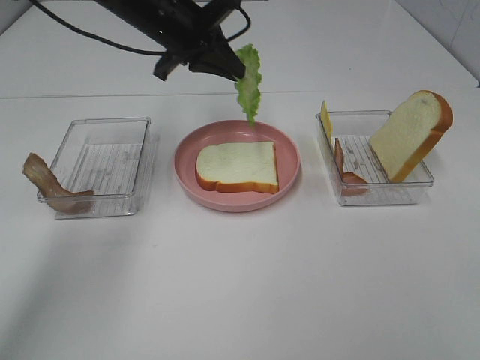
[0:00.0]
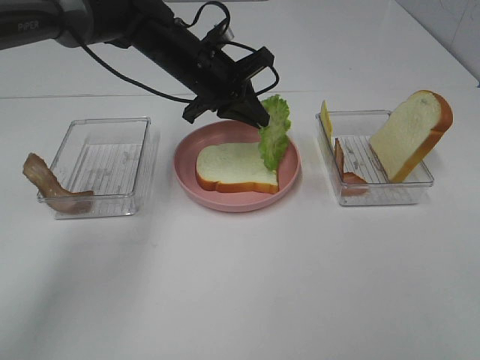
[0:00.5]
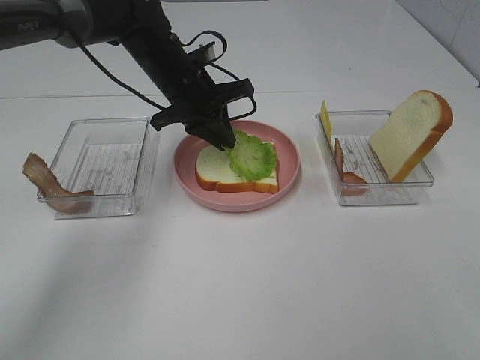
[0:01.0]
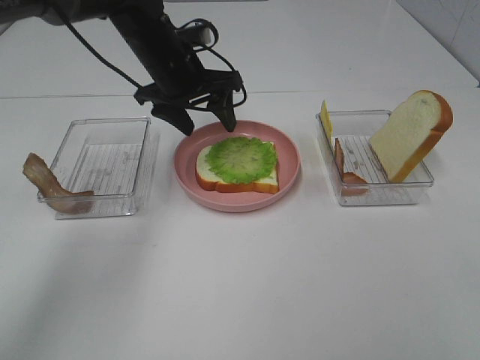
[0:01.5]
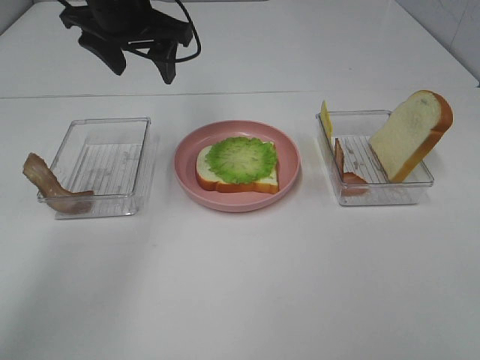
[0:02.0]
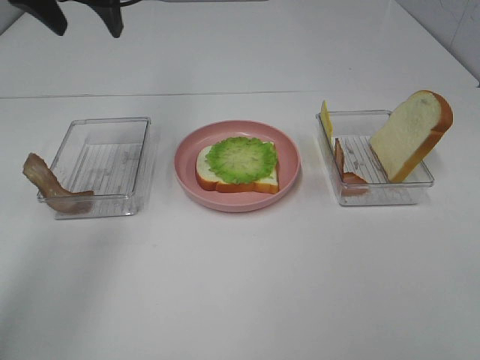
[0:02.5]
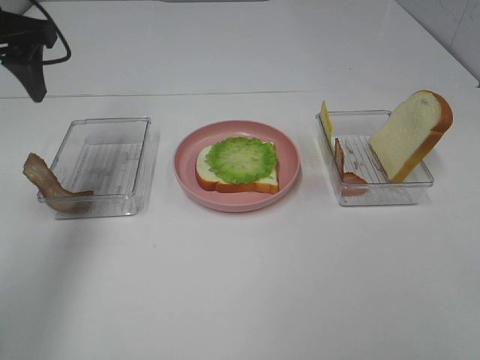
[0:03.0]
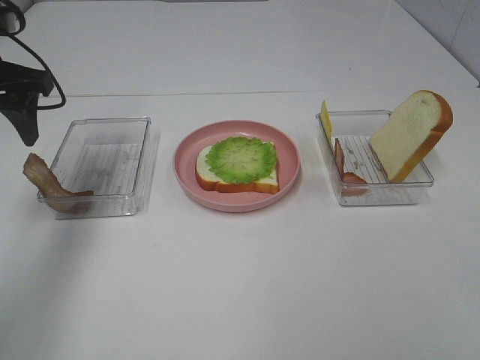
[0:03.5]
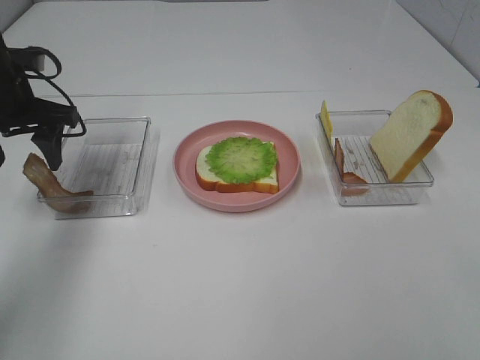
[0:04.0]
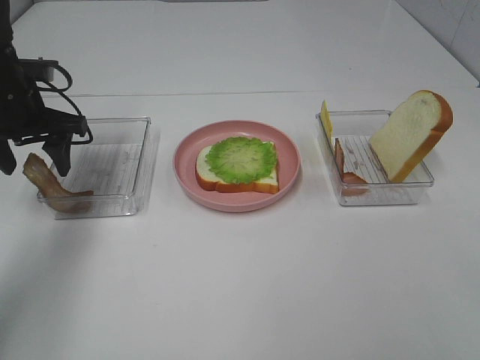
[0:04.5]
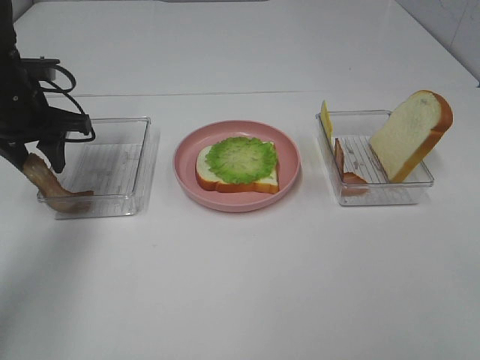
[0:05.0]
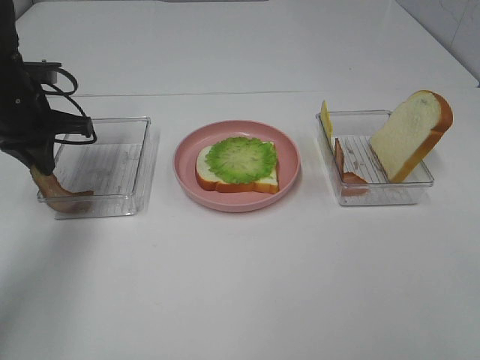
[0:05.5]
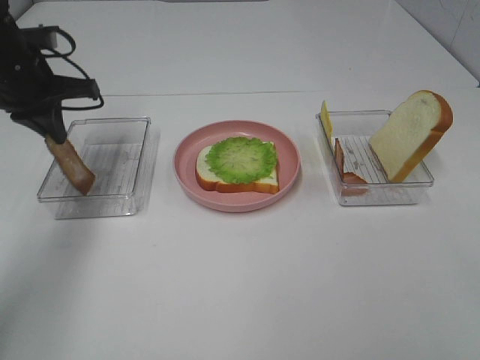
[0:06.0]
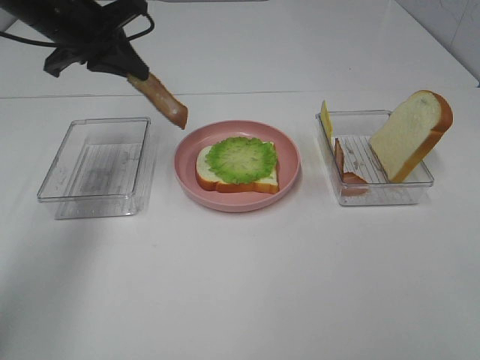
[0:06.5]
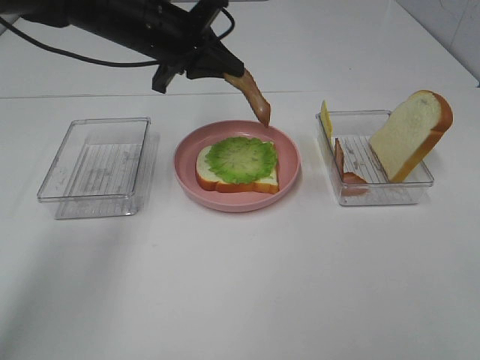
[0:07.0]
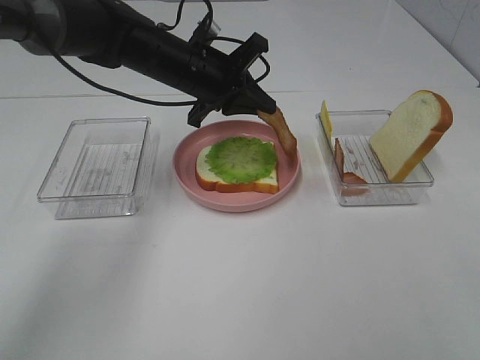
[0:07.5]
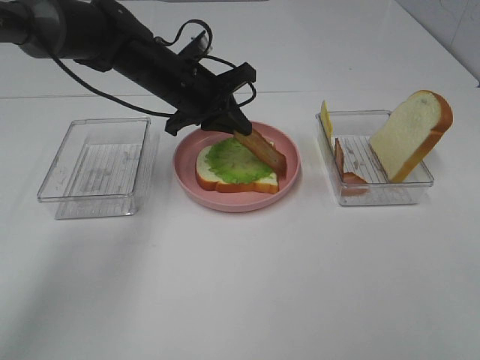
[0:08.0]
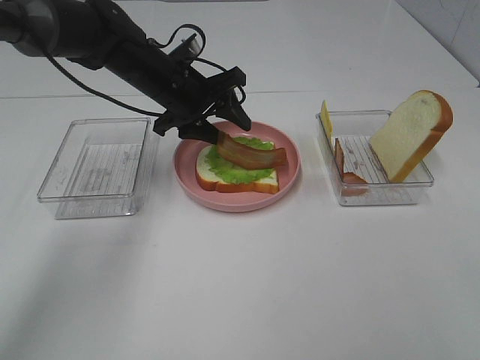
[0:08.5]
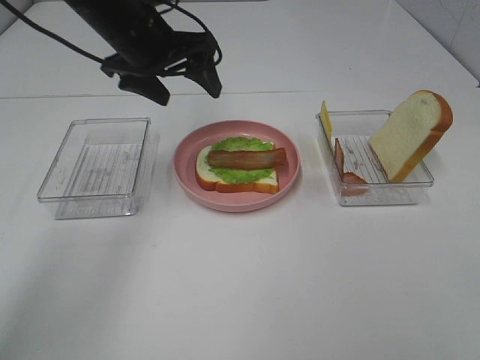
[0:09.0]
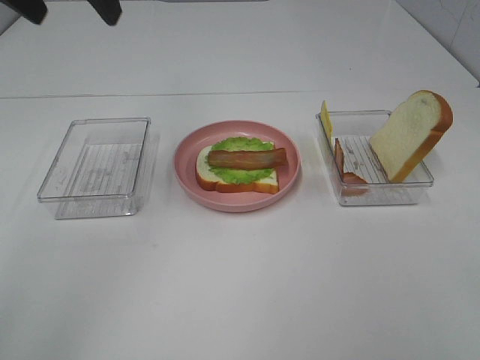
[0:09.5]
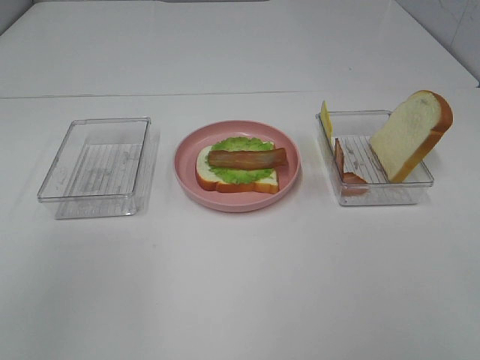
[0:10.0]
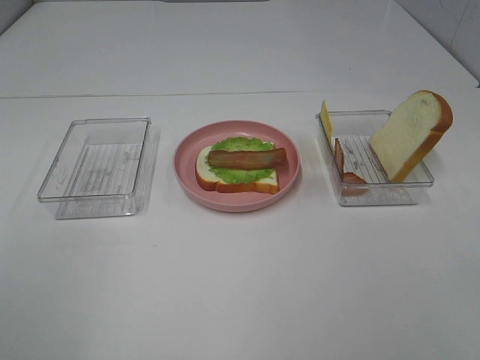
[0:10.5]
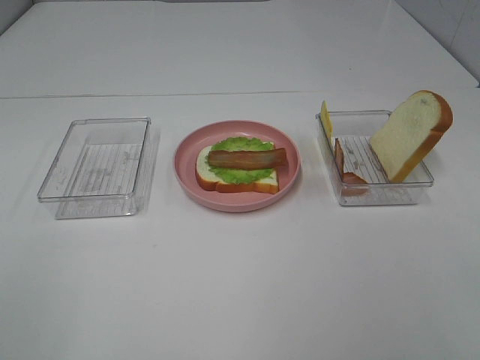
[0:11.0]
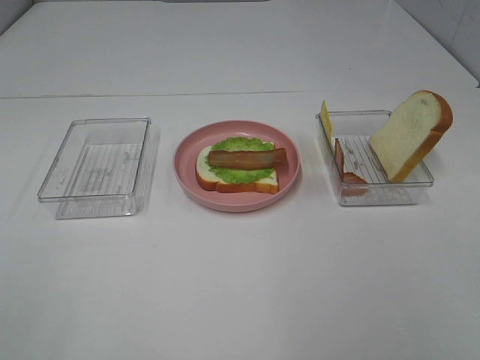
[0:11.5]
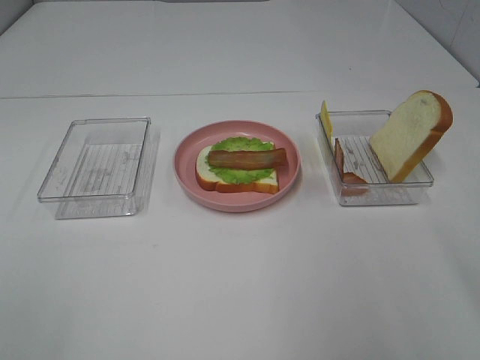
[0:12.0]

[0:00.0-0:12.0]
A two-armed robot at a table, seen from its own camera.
Task of the whole recording: Make sandwiches.
Step, 1.5 to 5.5 s: Left hand:grab the bacon.
Step, 6.0 to 8.5 s: Left hand:place bacon on lettuce slice.
0.0 to 2.0 s: The left gripper shifts by roughly 5 cm, and opens.
2.0 to 4.0 s: The left gripper shifts about 15 cm to the left and downward.
4.0 to 6.0 s: The left gripper closes up.
6.0 to 8.0 s: The left gripper travels to the right by roughly 15 cm.
8.0 to 10.0 s: The left gripper is displaced backward, upward and to the left by approximately 40 cm, and opens its fingers.

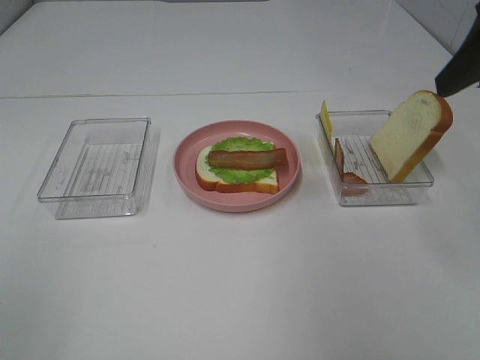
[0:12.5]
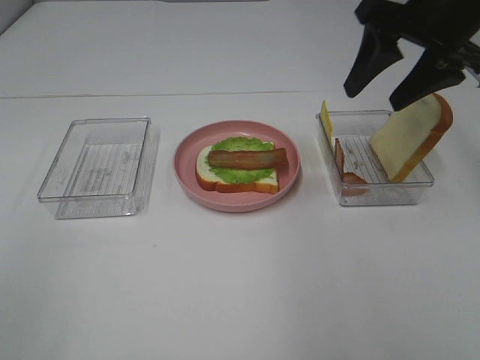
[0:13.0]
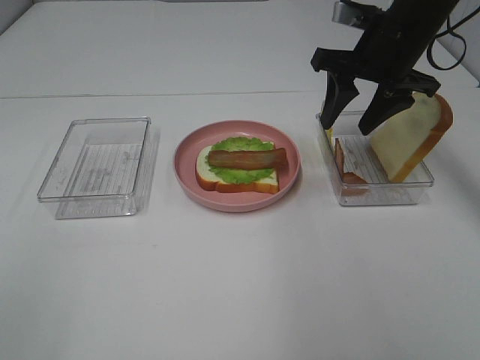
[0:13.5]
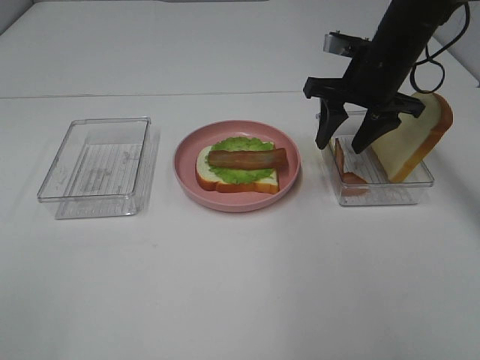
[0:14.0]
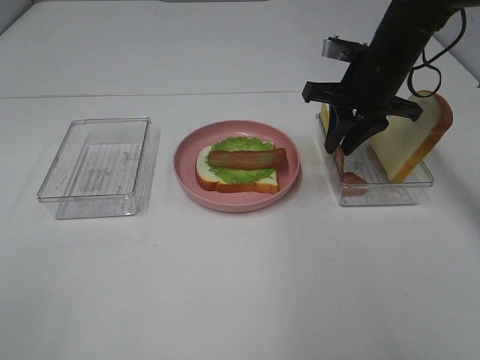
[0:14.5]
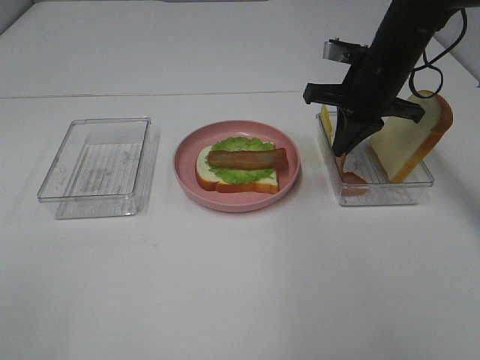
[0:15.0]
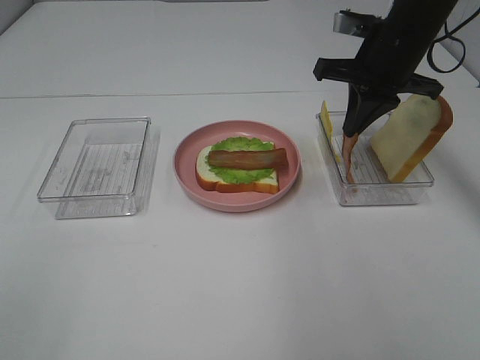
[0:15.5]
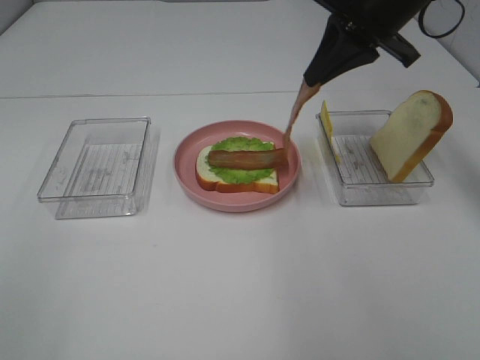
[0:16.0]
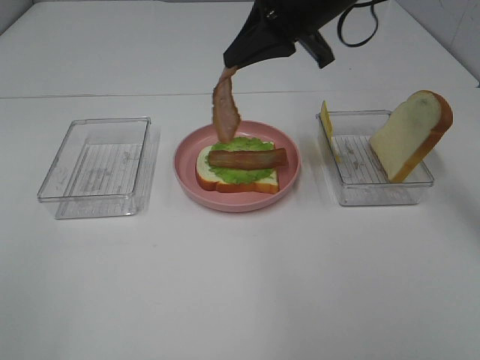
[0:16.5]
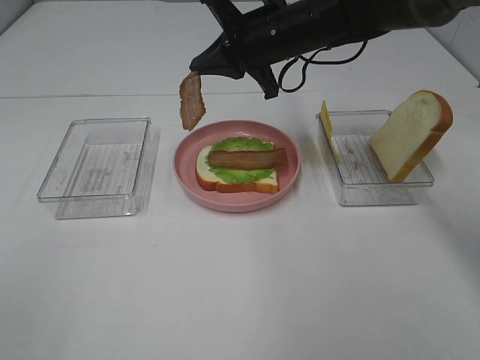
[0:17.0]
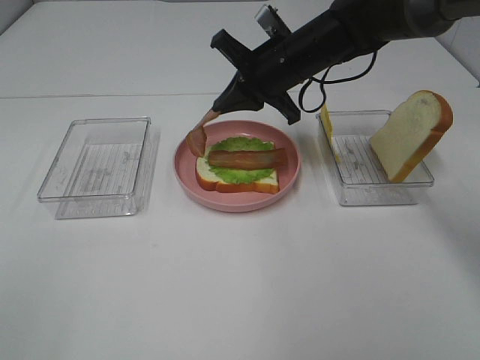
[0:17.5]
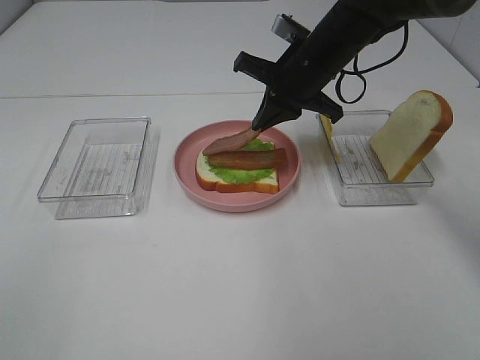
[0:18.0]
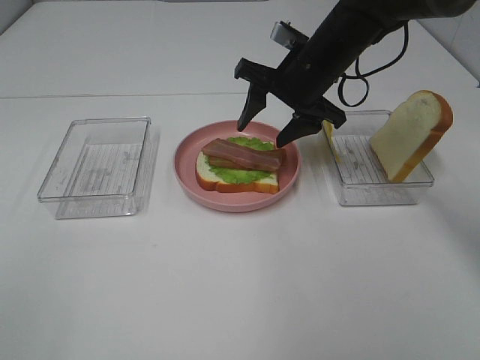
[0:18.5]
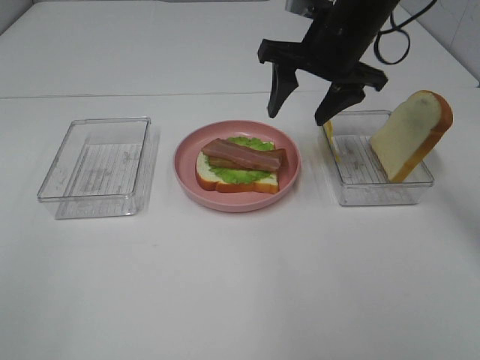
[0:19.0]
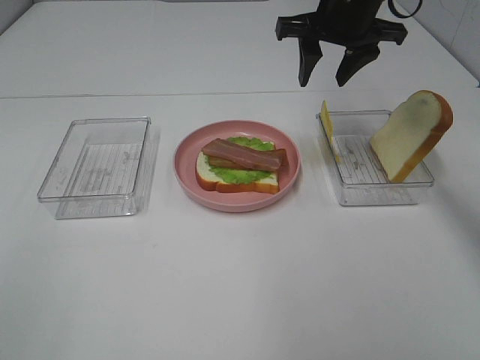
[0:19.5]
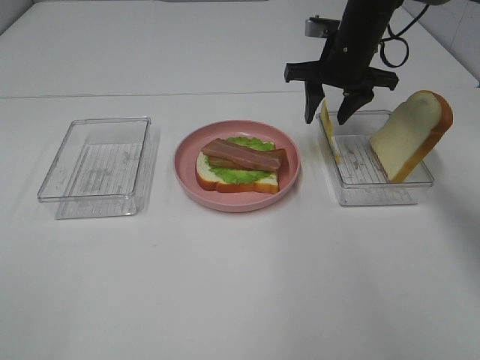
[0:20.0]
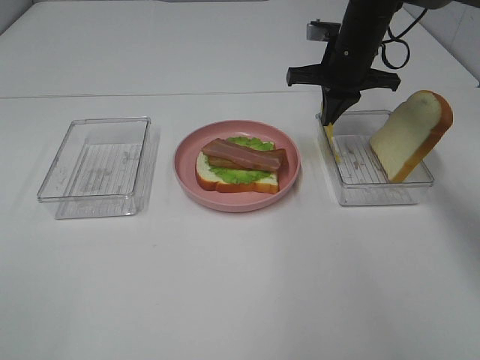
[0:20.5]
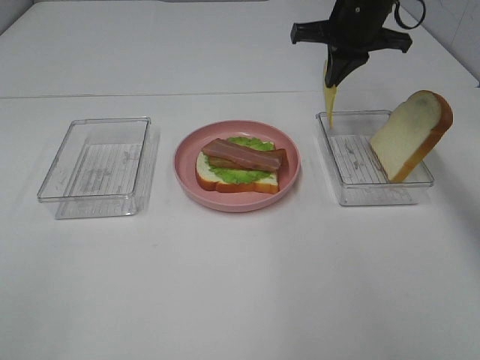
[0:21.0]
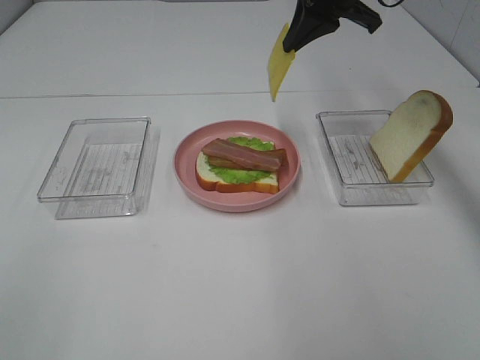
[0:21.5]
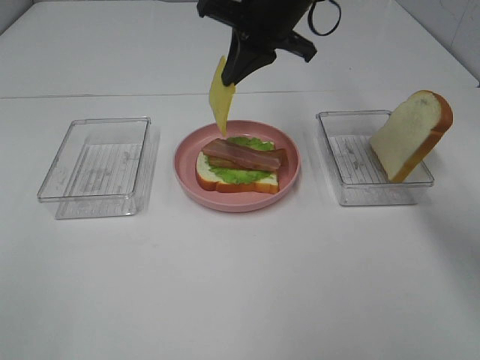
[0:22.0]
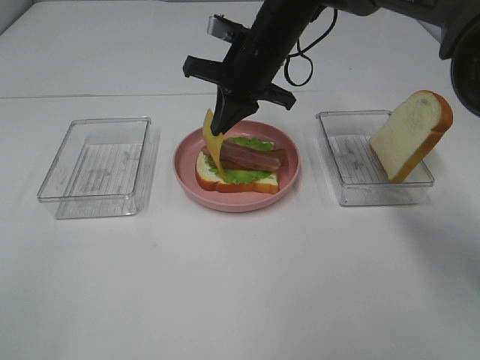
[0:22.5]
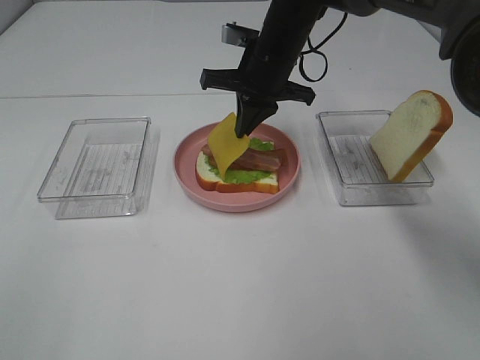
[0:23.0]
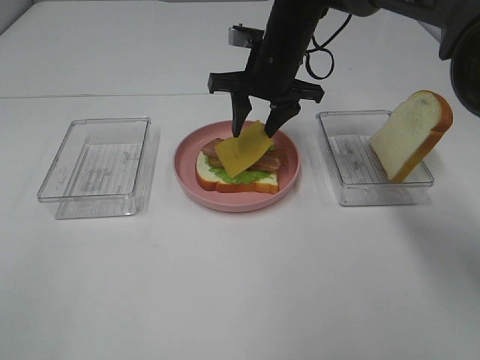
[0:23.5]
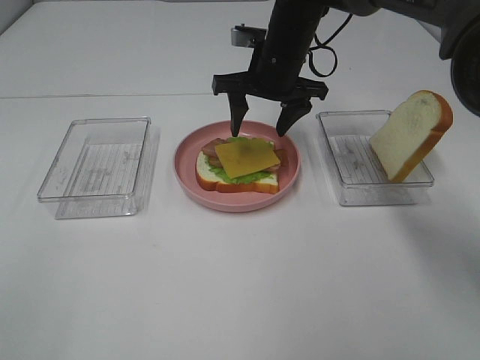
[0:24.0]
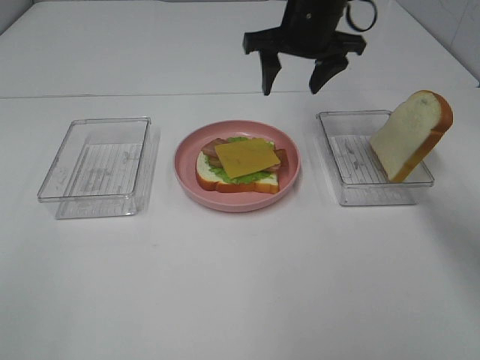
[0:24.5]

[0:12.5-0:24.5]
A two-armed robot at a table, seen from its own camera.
Task of the whole recording: Make sandwiches.
Step, 12.5 to 14.5 s: Right hand:grab the bacon.
Step, 15.0 to 18.5 s: Right hand:place bacon on bacon.
Step, 19.0 to 20.5 s: Right hand:grab the cheese slice.
Step, 21.0 to 23.5 s: Right hand:place the cheese slice on top of the bacon.
12.5 to 14.5 s: The right gripper heads forward, downward and to the left, covering approximately 25 cm, and closes.
14.5 to 16.5 s: The right gripper is displaced upward and to the left by some 15 cm.
16.5 to 18.5 s: The right gripper moves downward, roughly 10 cm, and opens its fingers.
18.5 to 20.5 s: The right gripper is displaced forward and to the right by roughly 10 cm, and closes up.
20.5 to 22.5 s: The right gripper shifts roughly 15 cm to the left.
22.5 to 24.5 s: The right gripper moves to the right and upward, roughly 10 cm, and opens up.

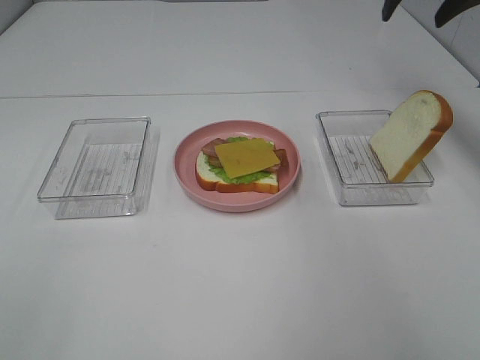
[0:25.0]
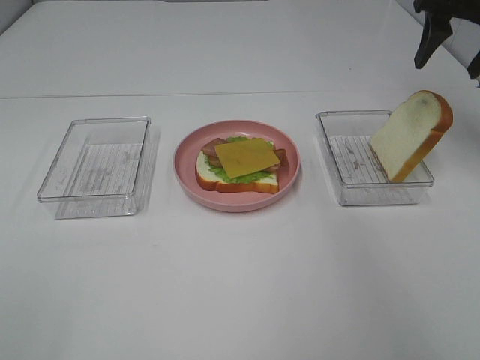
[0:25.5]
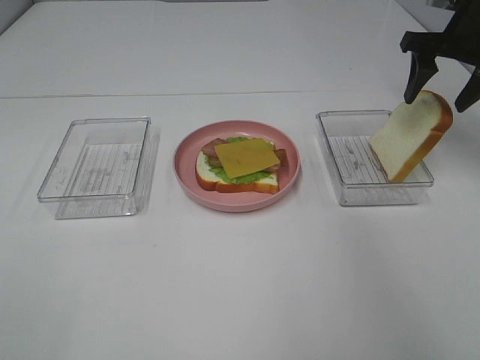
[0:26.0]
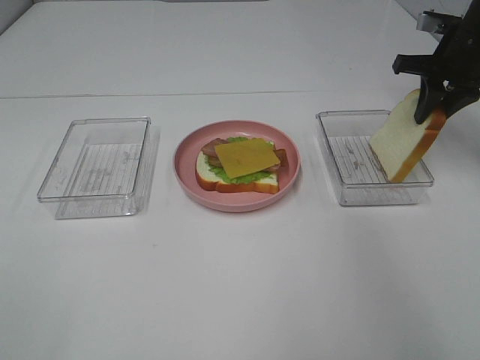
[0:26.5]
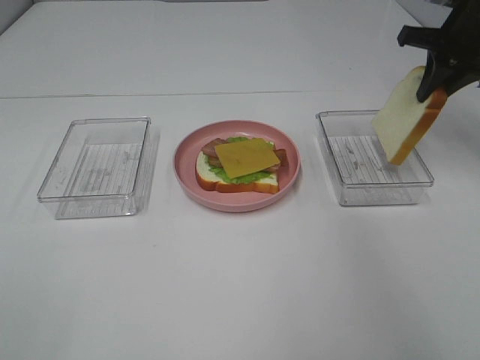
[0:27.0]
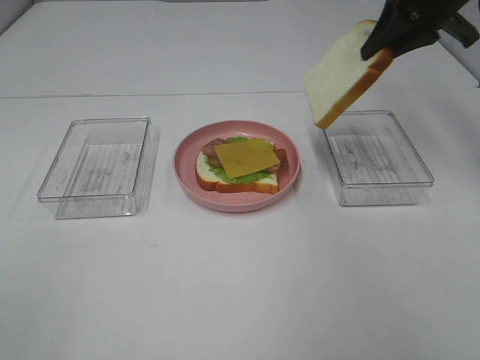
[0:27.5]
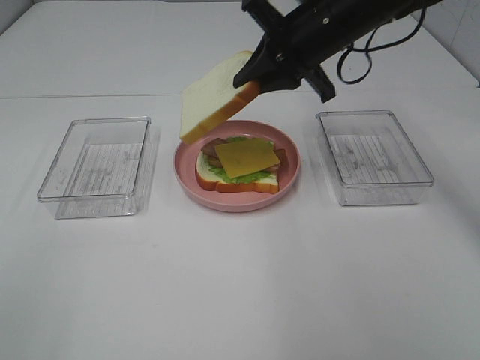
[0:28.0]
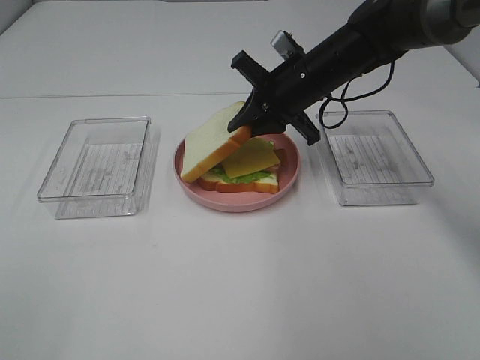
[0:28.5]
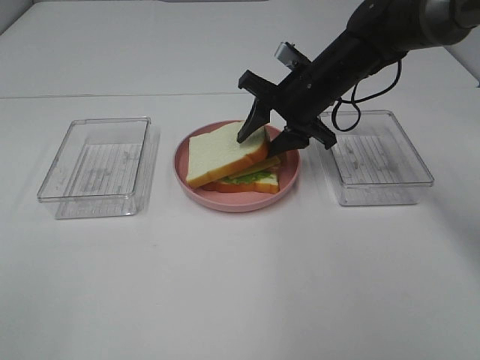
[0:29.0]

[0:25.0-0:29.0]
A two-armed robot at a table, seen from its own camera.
Task of the whole recording: Make sandwiches.
Step, 25.0 to 26.5 s: Right hand:grab the bread slice.
25.0 to 27.0 s: The right gripper heads downward, covering approximately 10 cm, and closes its fingers.
27.0 to 29.0 s: The right gripper moves to the left and downward, approximately 20 cm, and opens.
